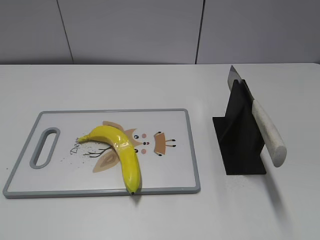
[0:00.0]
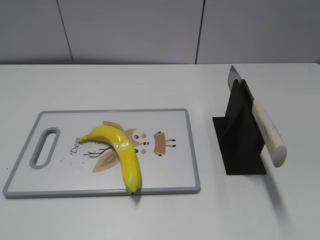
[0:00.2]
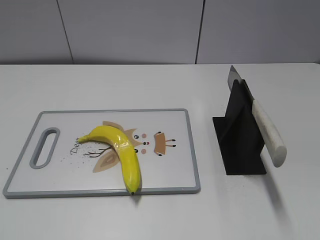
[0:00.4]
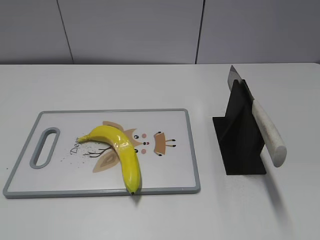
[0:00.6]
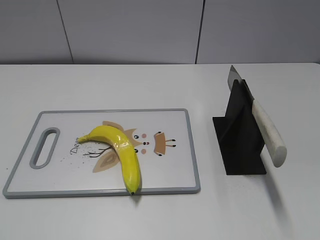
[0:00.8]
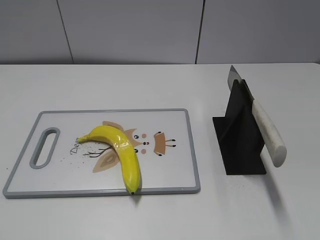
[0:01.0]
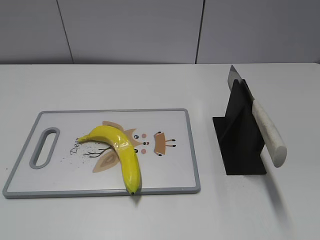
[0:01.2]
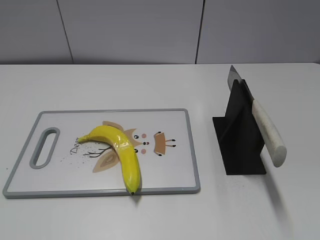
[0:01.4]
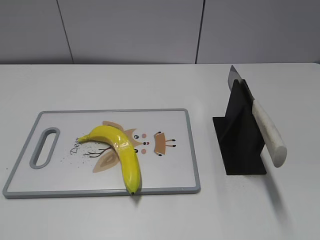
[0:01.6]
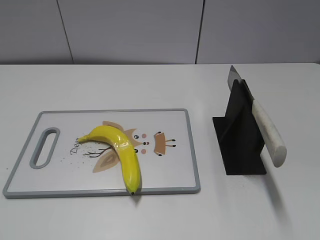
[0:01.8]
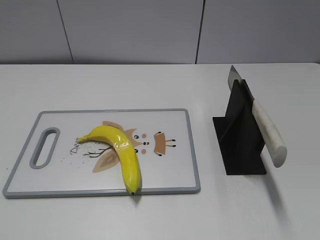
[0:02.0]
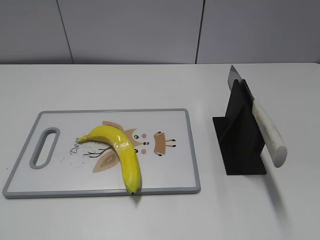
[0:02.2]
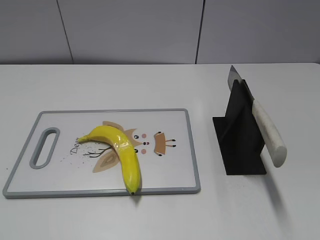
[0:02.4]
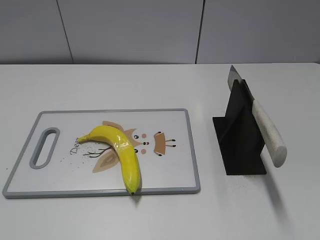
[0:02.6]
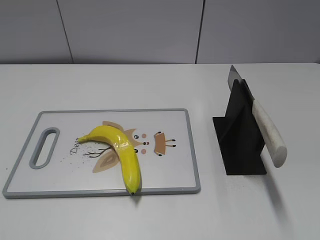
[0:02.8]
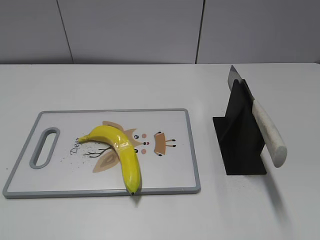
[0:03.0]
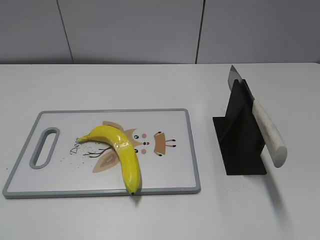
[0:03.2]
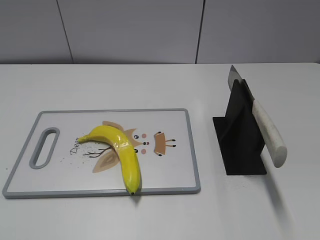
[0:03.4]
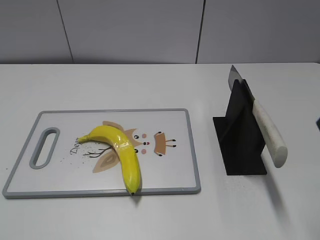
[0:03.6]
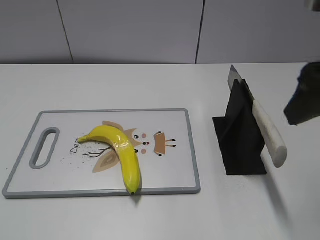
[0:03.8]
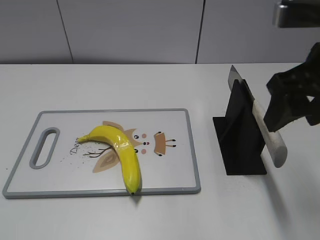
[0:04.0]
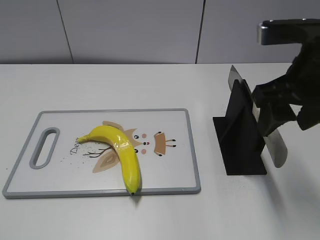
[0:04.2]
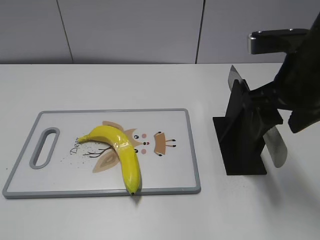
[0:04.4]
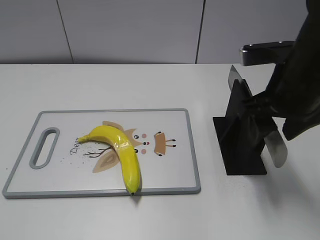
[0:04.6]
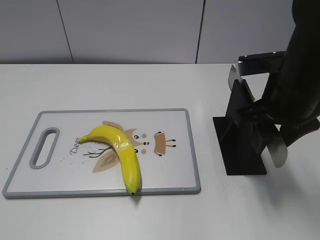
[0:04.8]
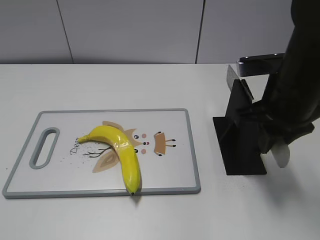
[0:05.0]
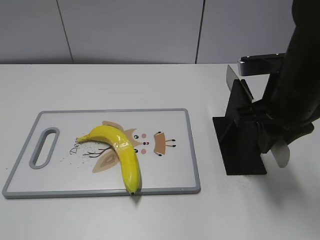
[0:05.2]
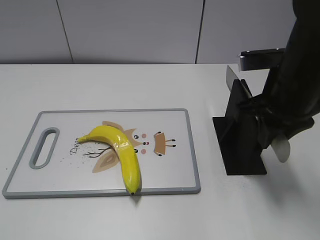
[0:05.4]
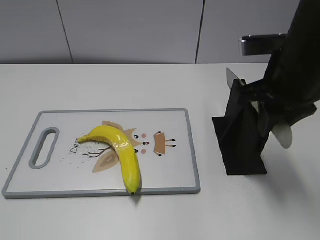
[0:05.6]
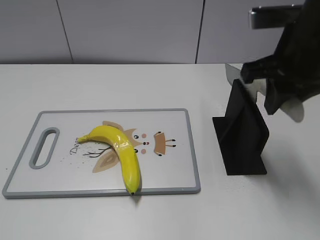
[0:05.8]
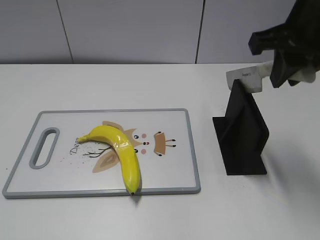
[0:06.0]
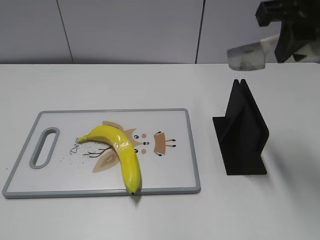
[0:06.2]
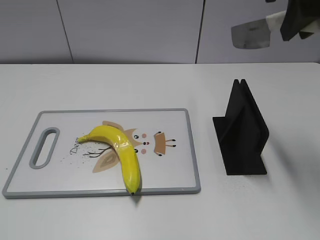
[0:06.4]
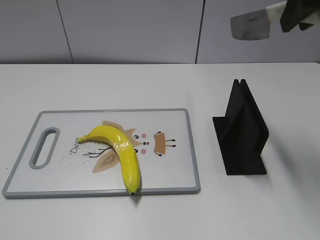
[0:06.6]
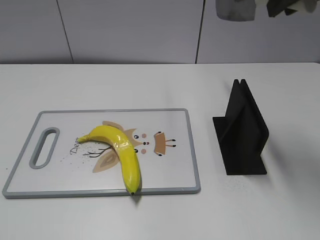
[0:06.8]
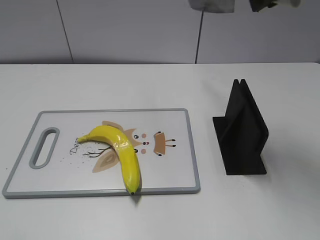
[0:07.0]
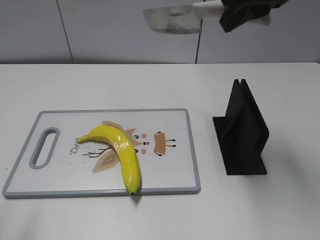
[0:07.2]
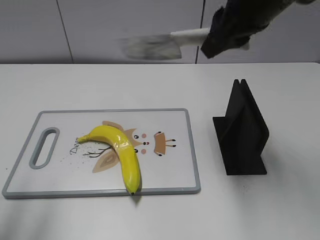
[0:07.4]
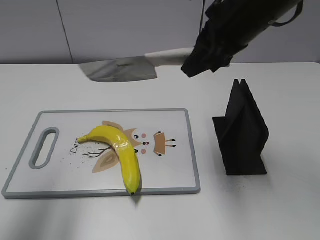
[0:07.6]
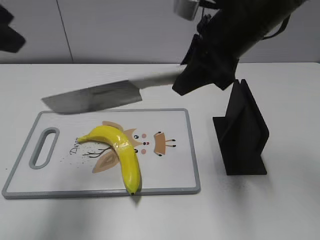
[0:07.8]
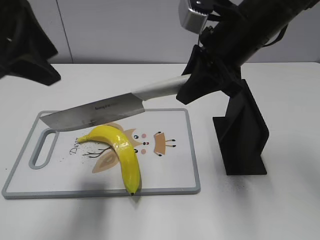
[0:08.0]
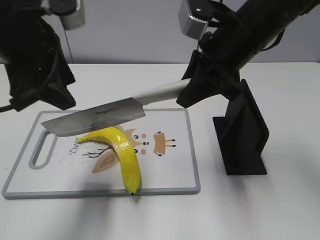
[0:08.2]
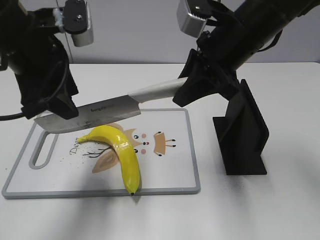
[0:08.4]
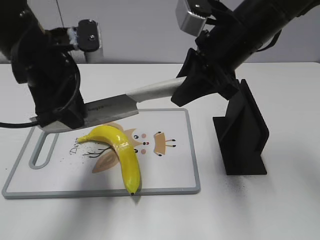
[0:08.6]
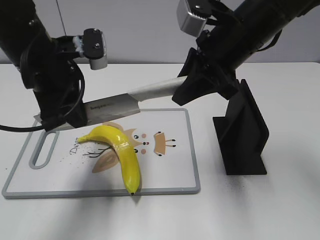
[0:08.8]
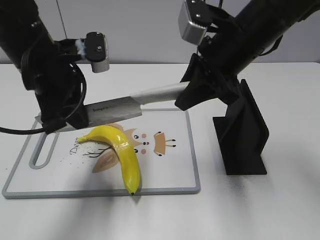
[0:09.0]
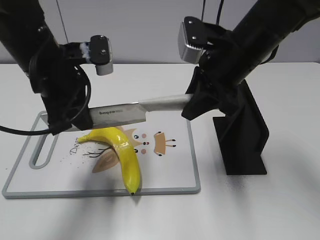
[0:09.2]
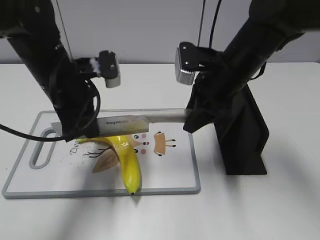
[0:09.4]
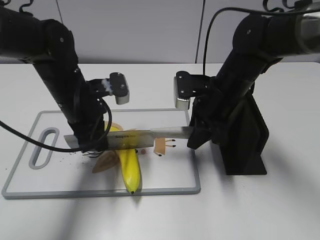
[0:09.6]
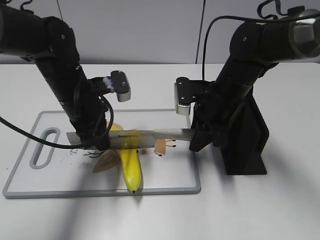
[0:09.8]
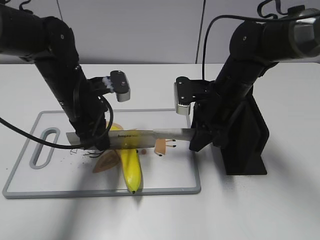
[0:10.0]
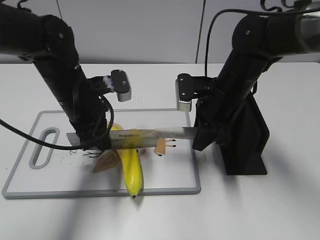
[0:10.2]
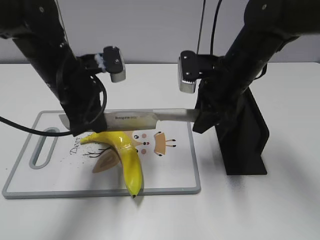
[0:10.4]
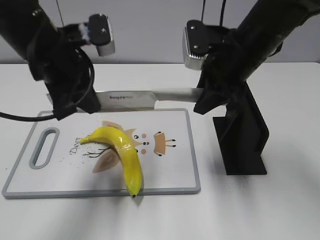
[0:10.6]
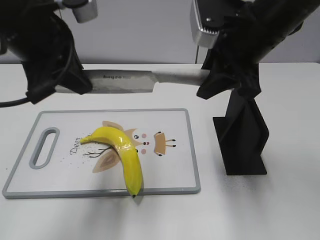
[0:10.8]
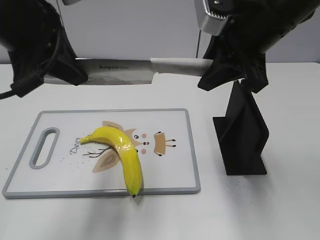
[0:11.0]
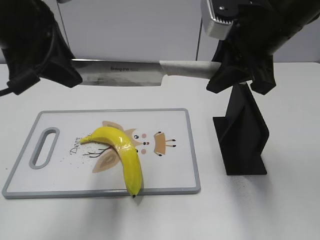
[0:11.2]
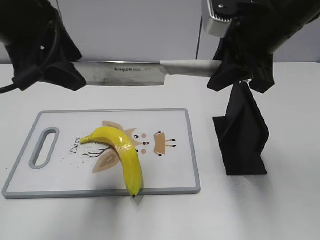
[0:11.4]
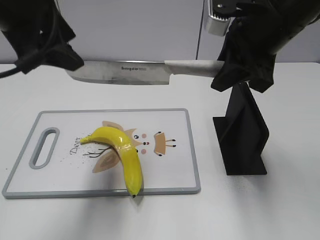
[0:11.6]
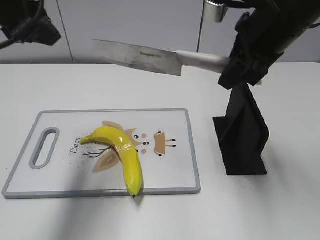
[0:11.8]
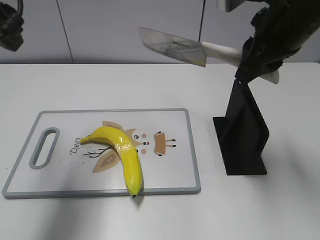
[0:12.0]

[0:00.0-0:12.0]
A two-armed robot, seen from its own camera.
Task of the whole recording: cut plastic banana.
Step, 0:00.0 to 0:06.2: Grab the knife handle with your right hand.
Step, 0:06.6 to 0:11.2: Lift the knife with your right hand.
0:03.0 to 0:04.4: The right gripper heads forward, to the left and downward, covering roughly 20 cm.
0:04.4 to 0:06.0: The right gripper moves upward, some 5 cm, and closes its fingers.
0:06.0 to 0:07.6: The left gripper shifts approximately 20 cm forward and upward, while the right gripper goes roughly 5 cm to the left, and travels upward and back again, about 5 cm each way.
0:07.6 to 0:09.0: The left gripper travels downward, to the right and forward by approximately 20 cm, and closes its fingers. Meanwhile the right gripper travels downward by roughly 5 cm.
0:09.0 to 0:10.4: The right gripper moves downward, some 5 cm.
0:10.4 to 0:12.0: The right gripper goes about 10 cm upward. Meanwhile the left gripper travels upward and to the left by some 15 cm, and opens its fingers.

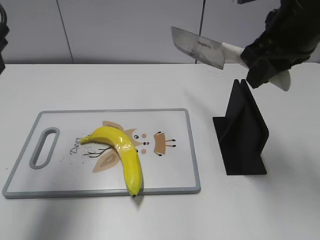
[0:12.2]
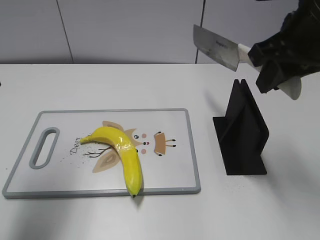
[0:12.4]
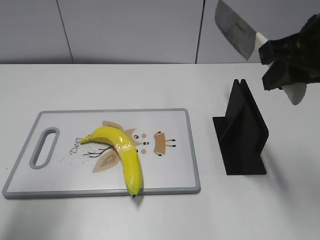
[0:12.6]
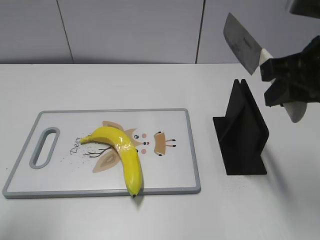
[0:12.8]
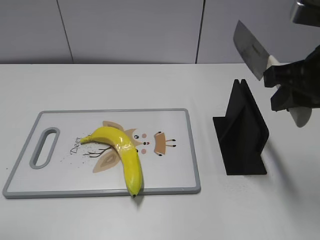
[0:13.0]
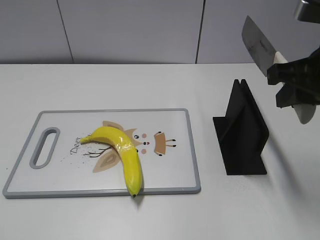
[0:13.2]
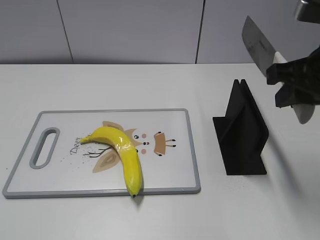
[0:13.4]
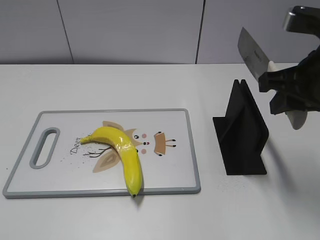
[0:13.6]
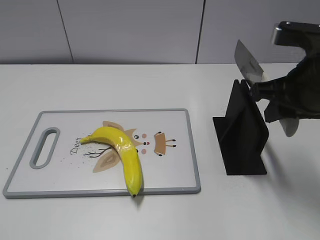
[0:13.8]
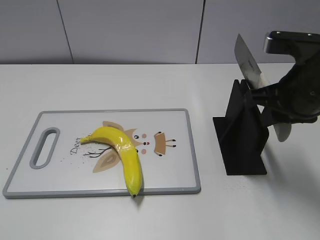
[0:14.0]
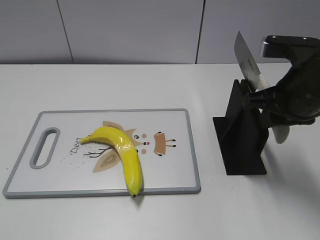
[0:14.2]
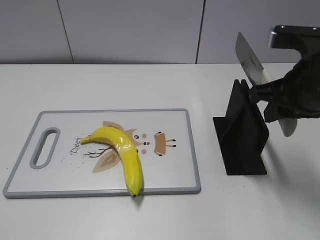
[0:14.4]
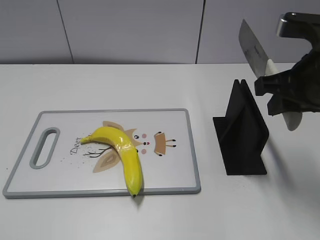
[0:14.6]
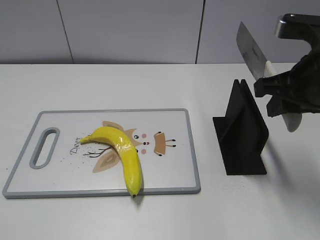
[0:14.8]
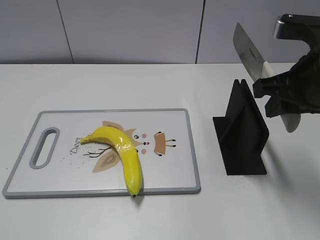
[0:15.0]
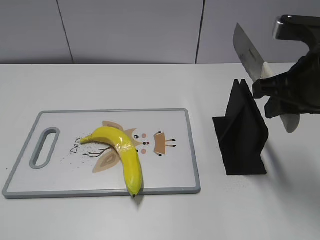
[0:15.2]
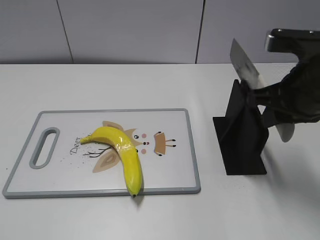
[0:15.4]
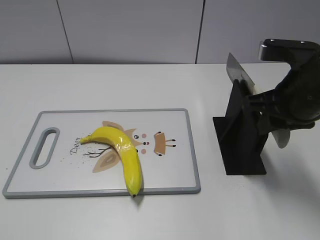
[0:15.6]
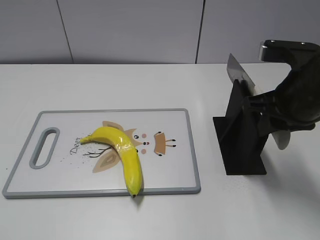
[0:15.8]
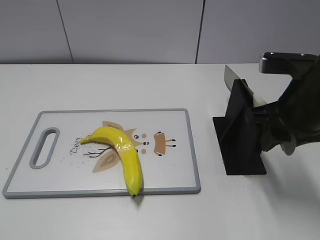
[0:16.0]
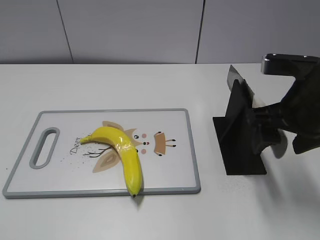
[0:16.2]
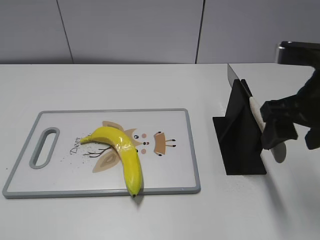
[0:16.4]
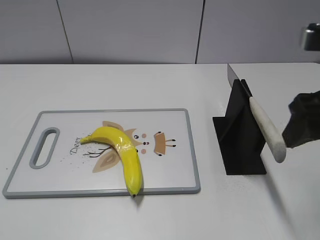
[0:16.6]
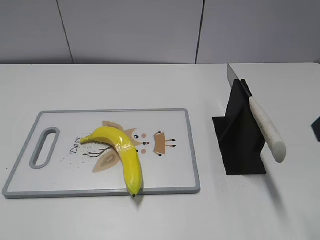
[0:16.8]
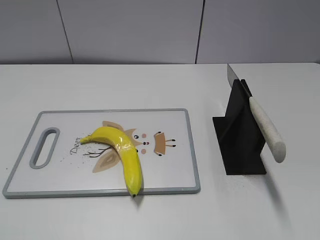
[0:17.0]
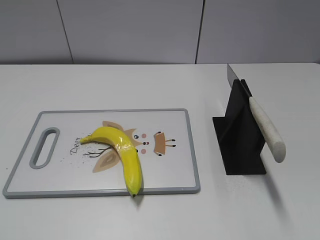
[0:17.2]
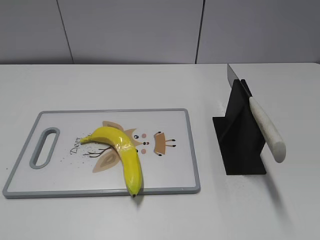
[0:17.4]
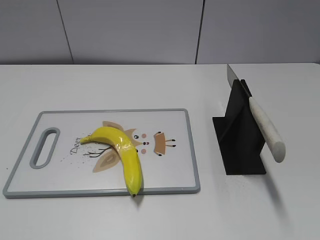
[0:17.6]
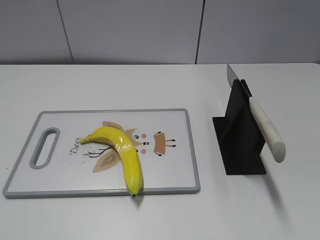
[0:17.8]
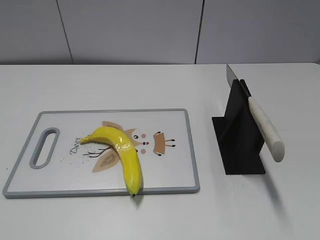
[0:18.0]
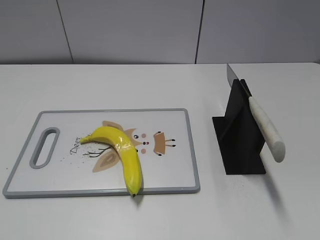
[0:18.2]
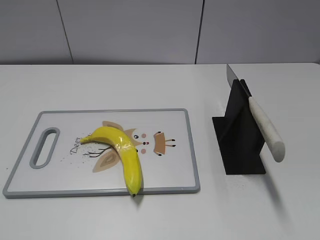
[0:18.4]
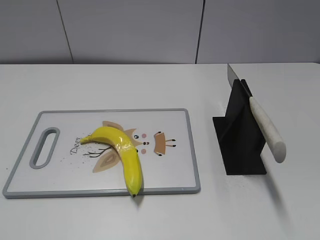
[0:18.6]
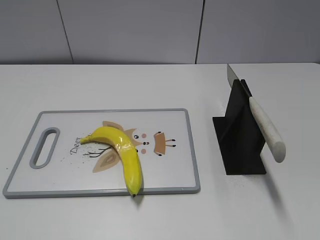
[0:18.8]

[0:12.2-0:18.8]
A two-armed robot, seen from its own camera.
Task of the whole recording: cut plastic banana.
Step, 0:12.8 to 0:13.8: Lift the knife with your right hand.
Step, 0:14.2 to 0:18.8: Place the knife on the storage rack with your right hand.
0:12.2 to 0:13.8: The left gripper is displaced backward by some 25 cm; the right gripper heads downward, covering some 5 cm.
0:13.8 to 0:15.4: There are only small adjustments of the grippers.
0:15.4 to 0:17.2: The right gripper heads backward and upward, covering about 20 cm, and opens up.
